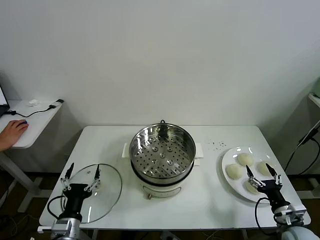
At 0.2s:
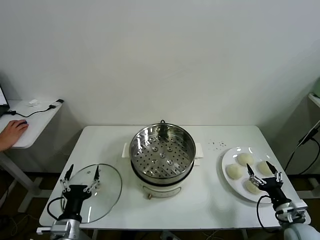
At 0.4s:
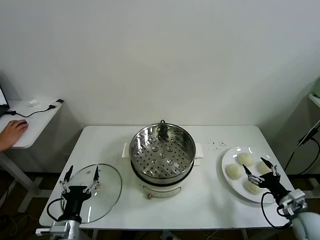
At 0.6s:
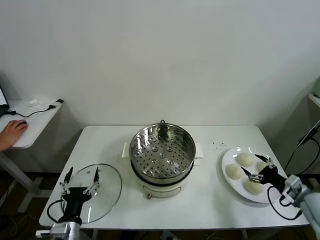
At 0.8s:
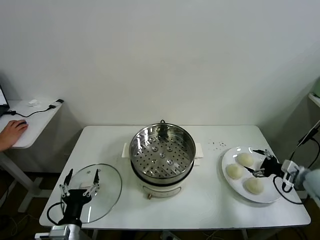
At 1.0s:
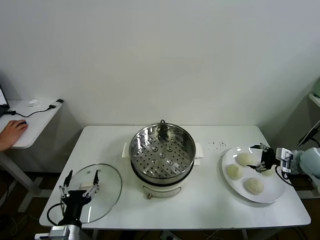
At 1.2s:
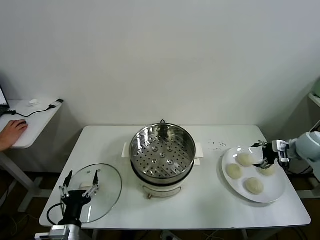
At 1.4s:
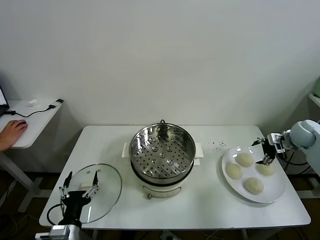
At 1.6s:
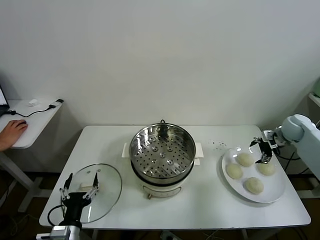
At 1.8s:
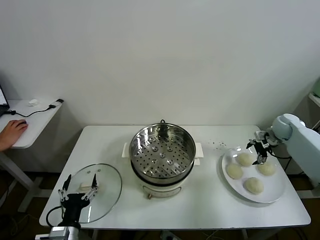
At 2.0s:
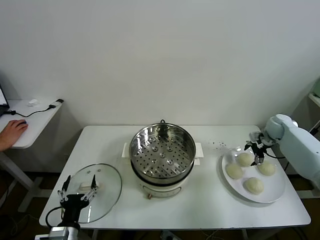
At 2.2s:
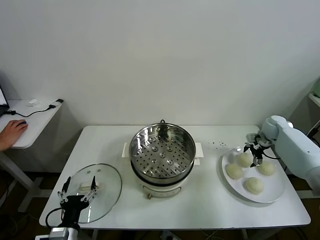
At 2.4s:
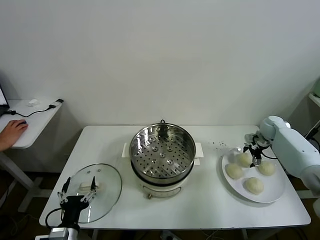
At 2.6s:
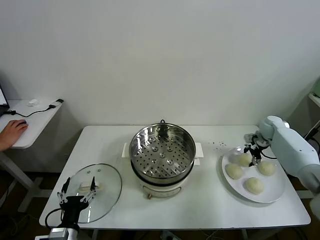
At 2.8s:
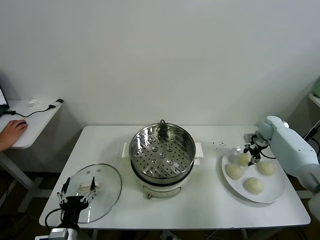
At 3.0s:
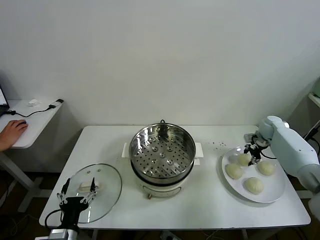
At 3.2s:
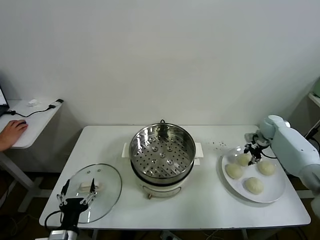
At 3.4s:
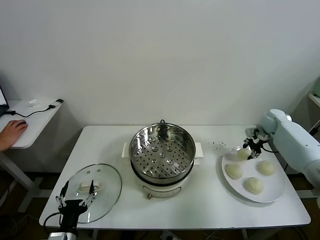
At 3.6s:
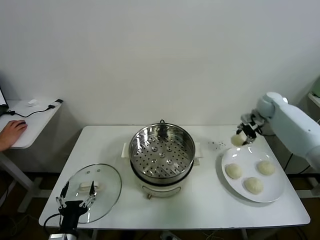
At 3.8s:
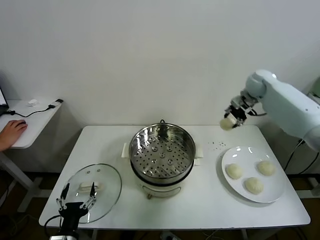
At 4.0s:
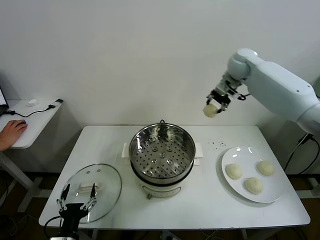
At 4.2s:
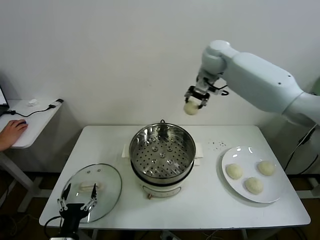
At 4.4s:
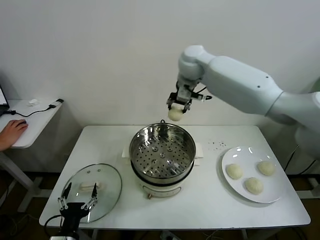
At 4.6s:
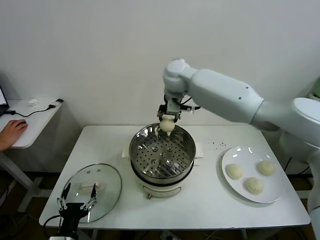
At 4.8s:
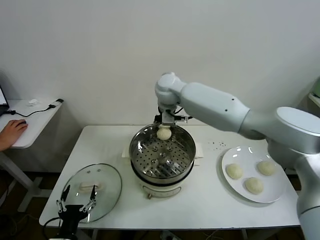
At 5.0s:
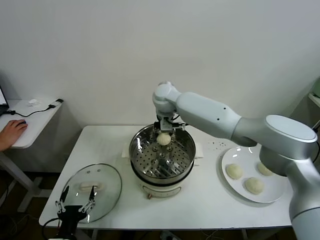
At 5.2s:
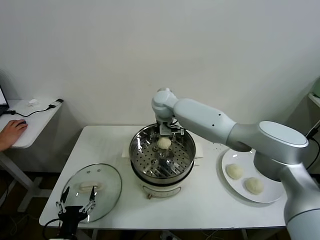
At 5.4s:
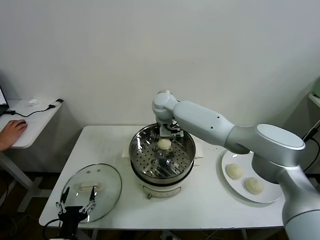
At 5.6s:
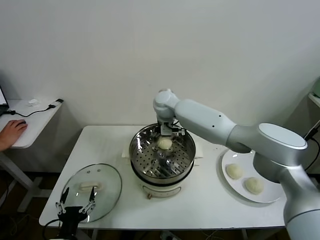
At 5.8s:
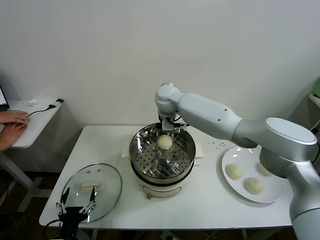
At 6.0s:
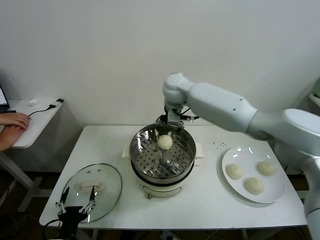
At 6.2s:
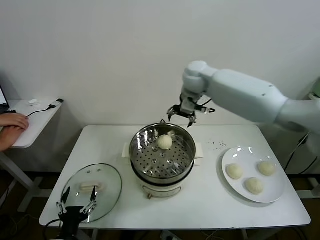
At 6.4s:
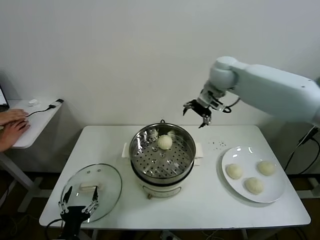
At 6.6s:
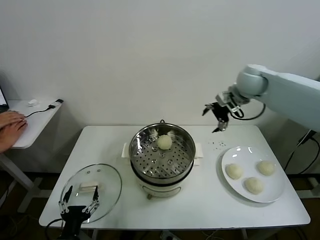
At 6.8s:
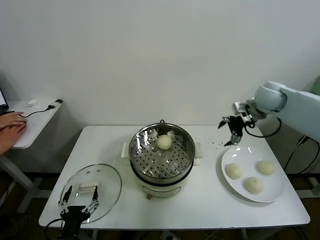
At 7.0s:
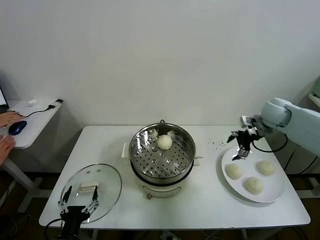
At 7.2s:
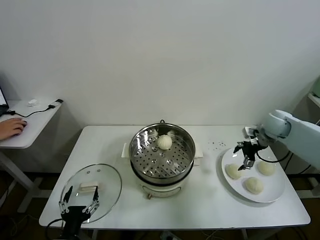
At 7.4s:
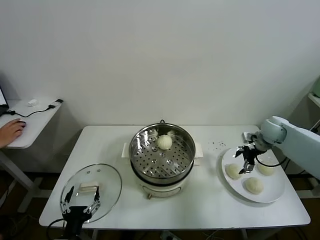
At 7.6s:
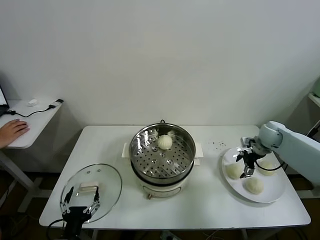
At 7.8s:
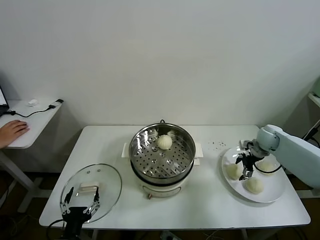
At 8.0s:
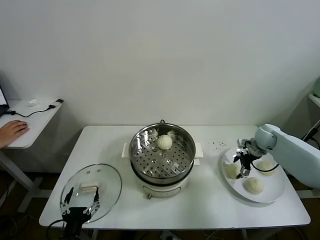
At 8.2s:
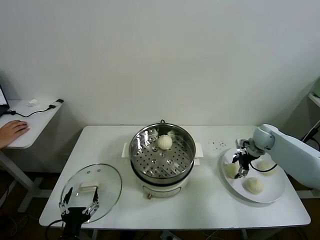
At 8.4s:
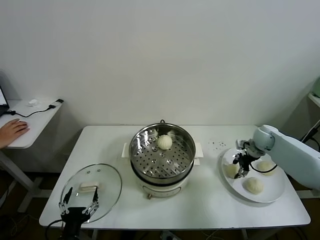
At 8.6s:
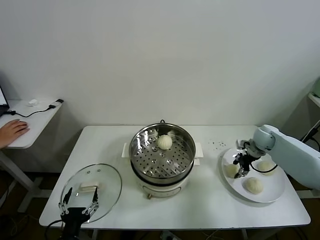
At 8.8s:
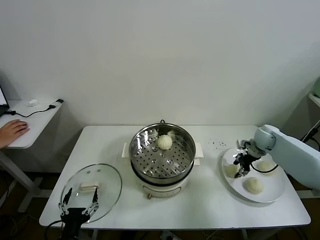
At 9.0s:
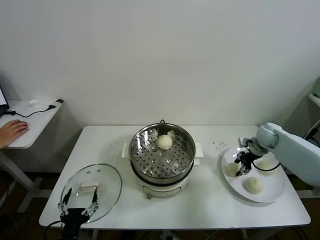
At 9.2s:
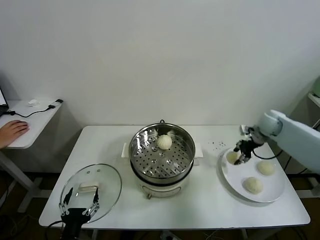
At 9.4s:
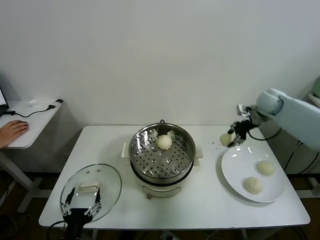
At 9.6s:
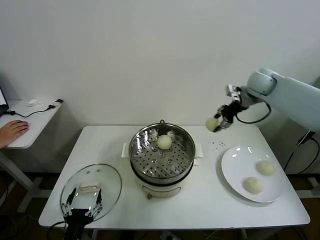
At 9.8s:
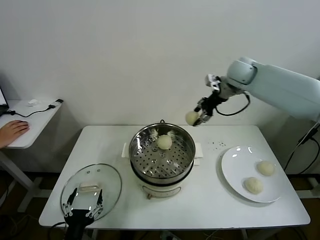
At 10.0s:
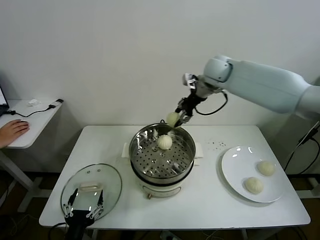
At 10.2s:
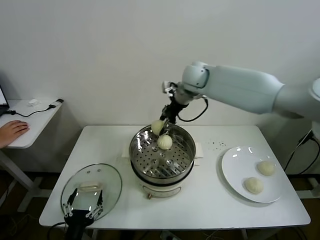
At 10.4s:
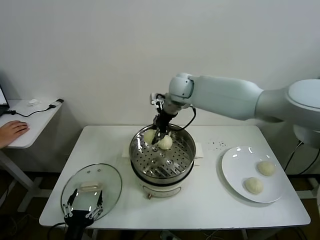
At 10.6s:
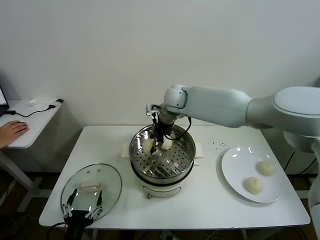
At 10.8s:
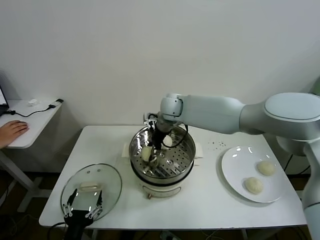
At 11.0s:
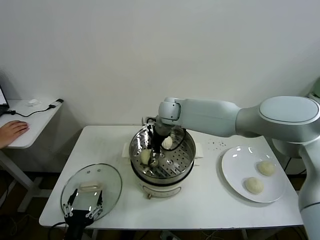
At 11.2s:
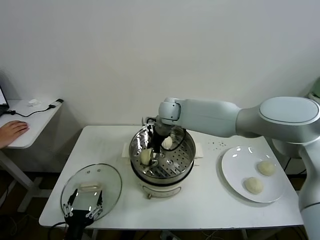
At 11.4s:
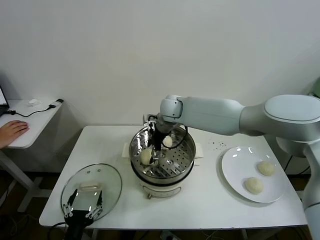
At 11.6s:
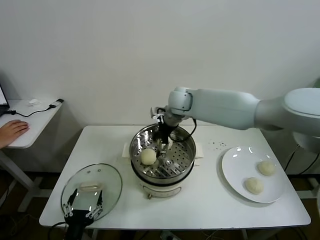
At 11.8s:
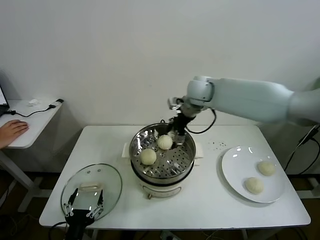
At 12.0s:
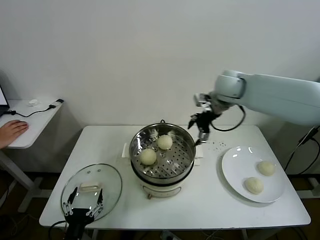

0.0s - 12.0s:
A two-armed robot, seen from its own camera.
Task of the whole recording: take steamed baozi put them in steamer.
Step, 0.0s - 2.6s: Grasp the baozi in the plate with right gripper.
Step, 2.8s - 5.8s: Place the baozi on the steamer with right gripper.
Step, 6.0s - 8.4s: Grasp the baozi in the plate with right gripper.
Step, 8.6s - 11.2s: Place the baozi on the steamer with right gripper.
1.6s - 3.0s: The right gripper shifts by approximately 5 cm, and closes.
3.0s - 4.4s: The right gripper goes some 50 cm to the left and upward.
4.4s - 6.0s: The right gripper goes downward and returns, about 15 cm each way, and opens.
6.0s - 7.6s: The right gripper travels to the right and downward by about 40 cm.
7.6s - 9.0s: The right gripper closes.
9.0s - 10.4s: The right gripper goes some 40 cm to the left and upward.
10.4s - 12.0s: The right gripper goes roughly 20 cm to the right, and opens up.

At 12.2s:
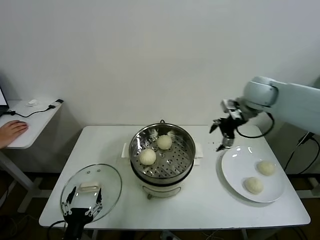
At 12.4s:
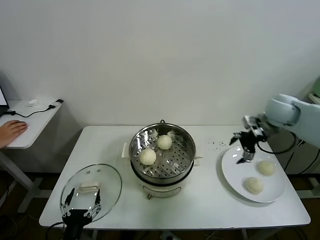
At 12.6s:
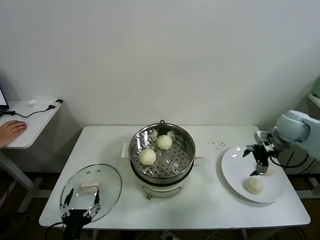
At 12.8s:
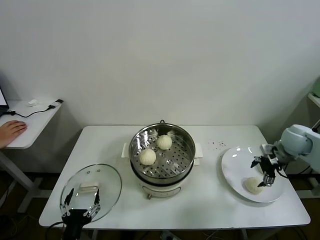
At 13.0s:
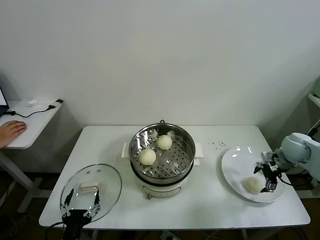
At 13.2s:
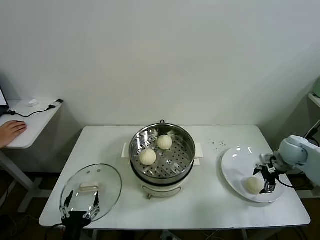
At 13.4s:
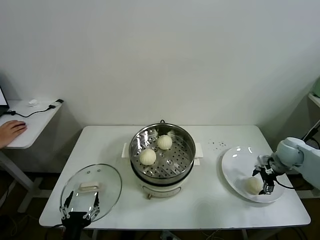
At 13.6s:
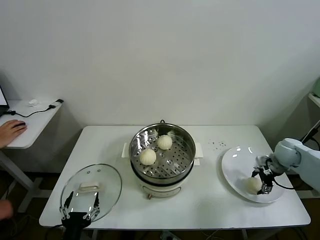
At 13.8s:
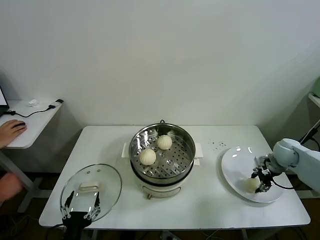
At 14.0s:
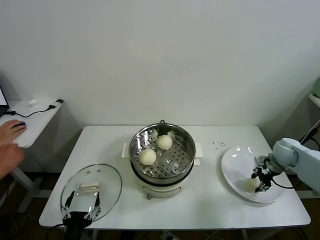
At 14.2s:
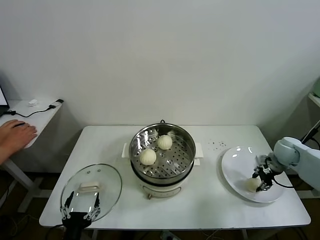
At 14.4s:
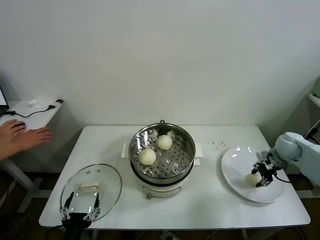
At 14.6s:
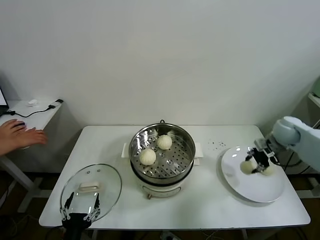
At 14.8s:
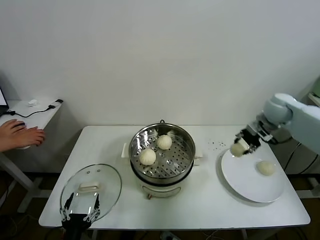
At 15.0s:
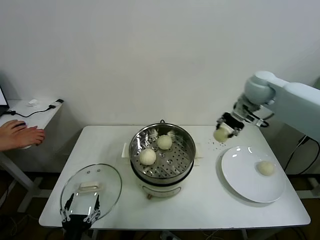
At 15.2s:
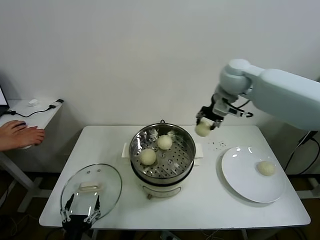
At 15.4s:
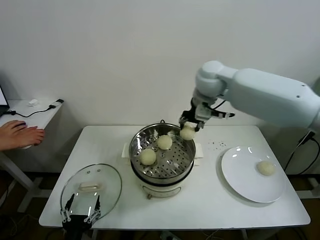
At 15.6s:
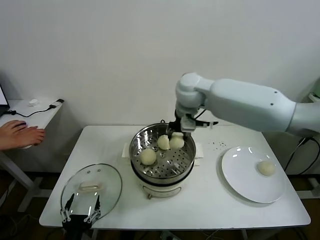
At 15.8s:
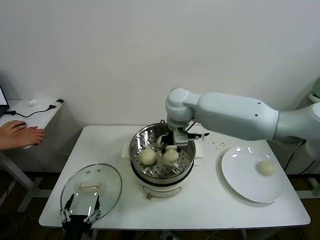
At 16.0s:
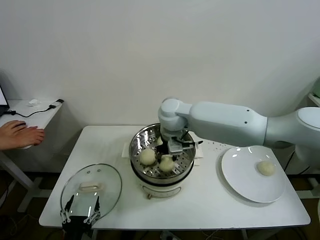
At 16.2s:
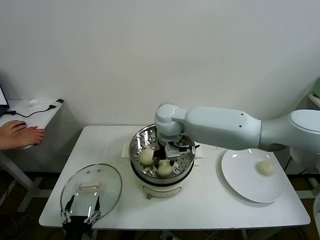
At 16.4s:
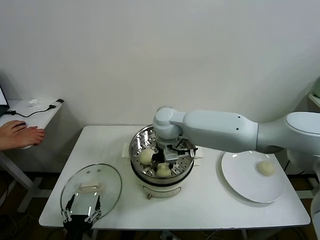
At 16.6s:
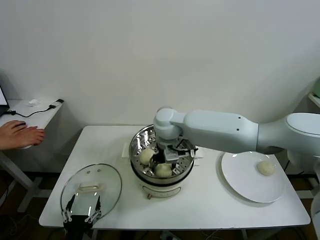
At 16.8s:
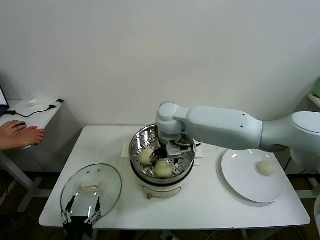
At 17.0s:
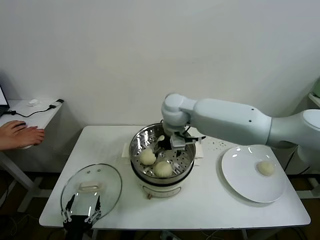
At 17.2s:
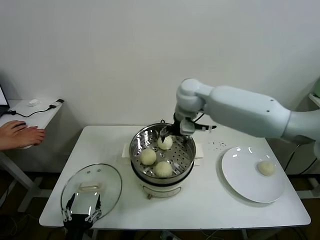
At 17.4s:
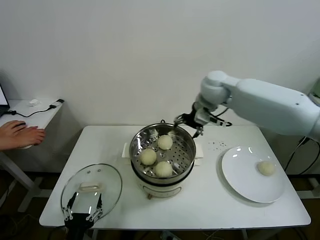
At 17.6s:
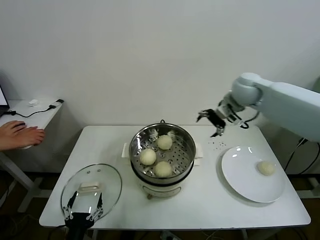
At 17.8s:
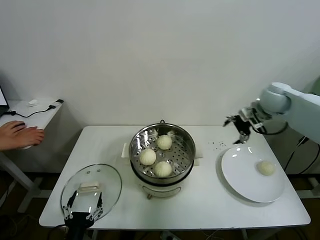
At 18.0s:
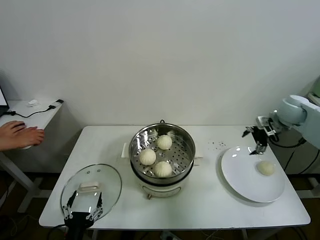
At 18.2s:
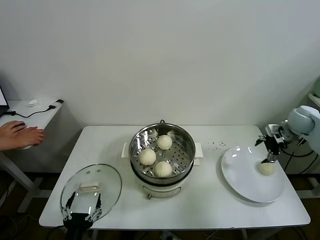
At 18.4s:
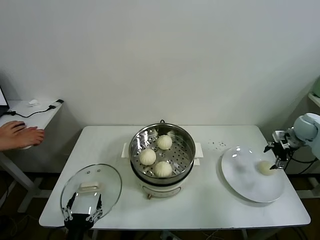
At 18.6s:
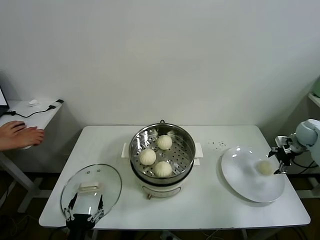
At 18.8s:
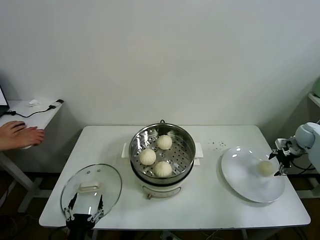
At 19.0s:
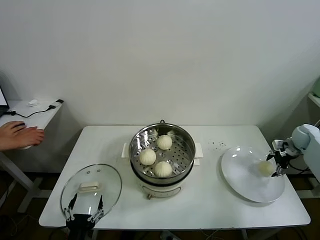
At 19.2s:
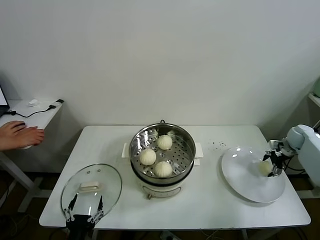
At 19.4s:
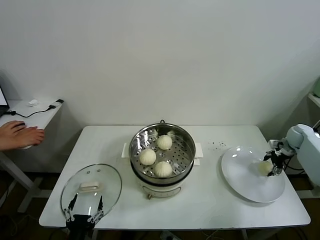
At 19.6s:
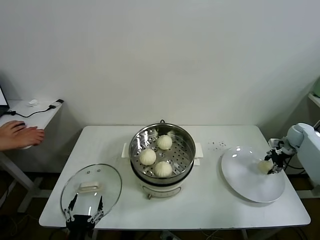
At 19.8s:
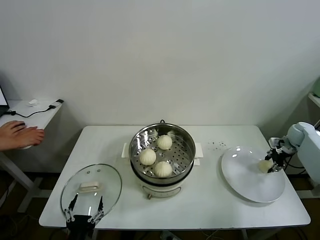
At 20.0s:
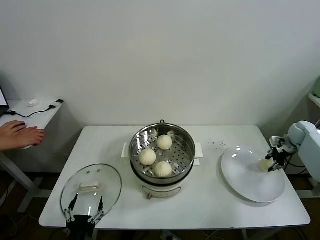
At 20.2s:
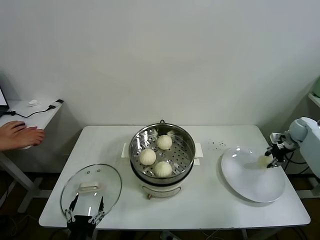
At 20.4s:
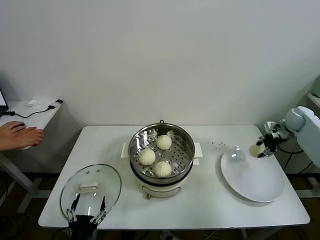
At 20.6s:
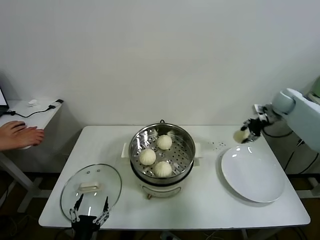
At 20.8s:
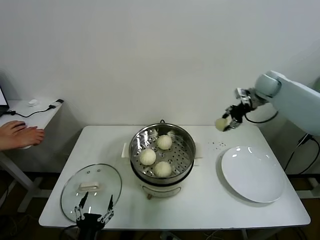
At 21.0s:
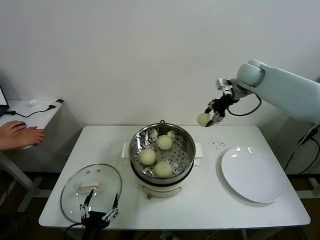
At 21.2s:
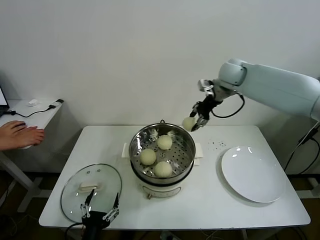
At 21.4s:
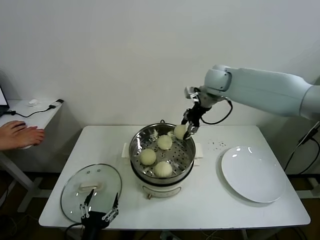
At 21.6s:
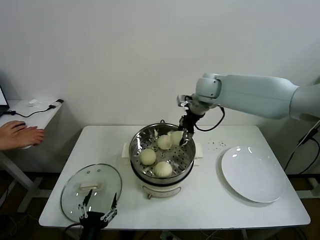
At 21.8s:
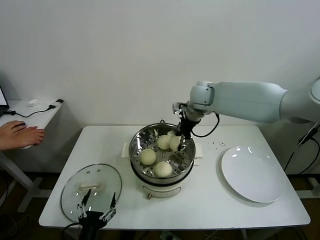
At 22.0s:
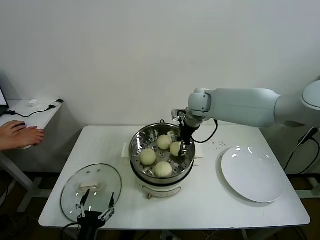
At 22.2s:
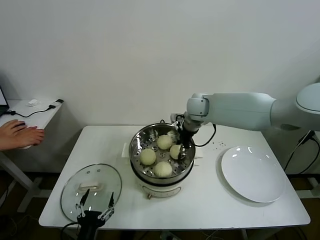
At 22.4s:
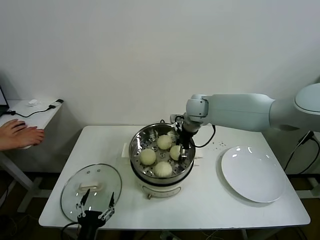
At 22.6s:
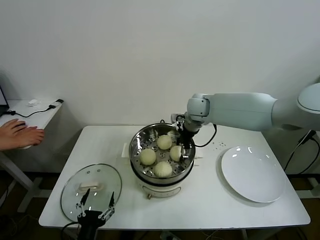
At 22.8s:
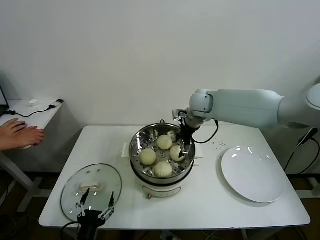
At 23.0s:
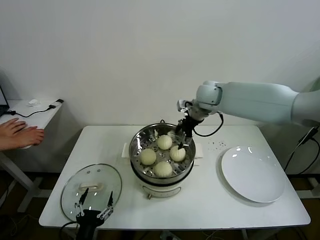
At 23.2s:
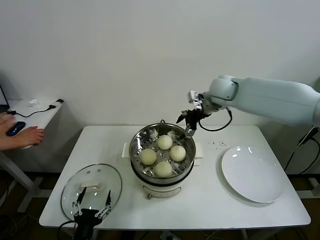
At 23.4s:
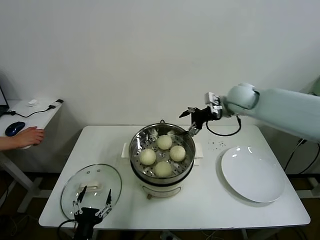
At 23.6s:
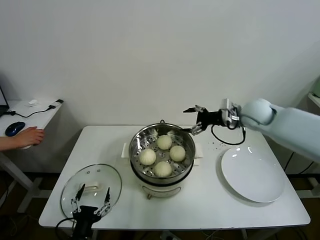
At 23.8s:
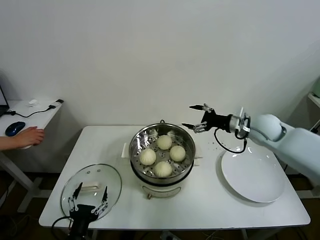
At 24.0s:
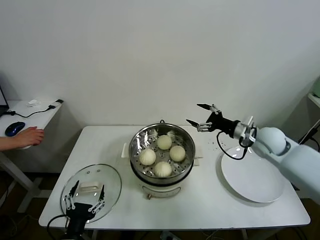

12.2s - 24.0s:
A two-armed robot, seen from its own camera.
Task of the whole recording: take steamed baozi put them in steamer.
Step, 12.2s - 13.8s: Grasp the baozi in the plate with right gripper.
Step, 14.0s - 16.6s: Place the baozi on the steamer with right gripper.
Step, 16.8s - 19.4s: Grasp the baozi in the plate with right gripper.
Step, 19.8s - 22.6s: Place the baozi on the steamer with right gripper.
12.2s - 13.6s: The right gripper is displaced downward and to the right by some 25 cm.
13.6s - 15.2s: The right gripper moves to the left and upward, roughly 40 cm, and closes.
15.2s - 16.6s: The right gripper shifts some 20 cm to the left and downward, and opens up.
16.6s - 18.2s: The right gripper travels to the right by roughly 50 cm.
18.2s - 19.6s: The right gripper goes some 10 cm downward and to the right, and closes.
19.6s - 21.0s: The right gripper shifts some 35 cm to the left and upward.
21.0s - 22.6s: The right gripper heads to the left and downward, covering some 20 cm, and opens its fingers.
22.6s - 24.0s: The right gripper heads to the right and backward, covering approximately 25 cm.
